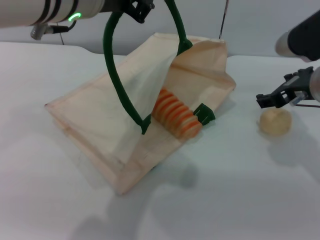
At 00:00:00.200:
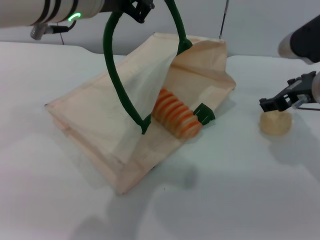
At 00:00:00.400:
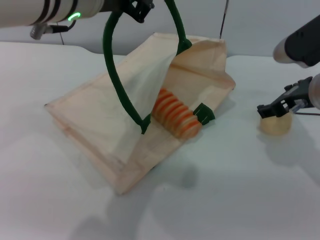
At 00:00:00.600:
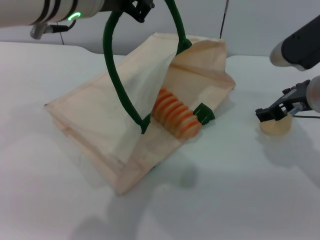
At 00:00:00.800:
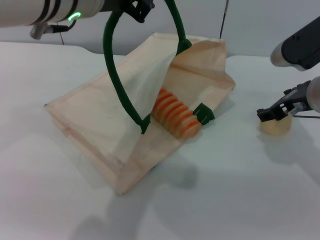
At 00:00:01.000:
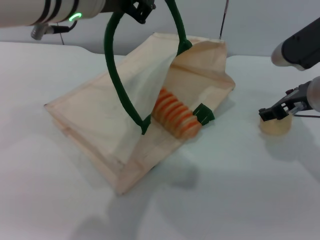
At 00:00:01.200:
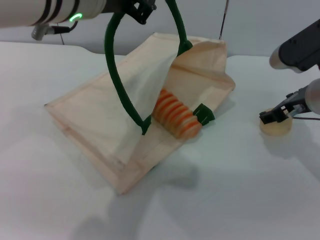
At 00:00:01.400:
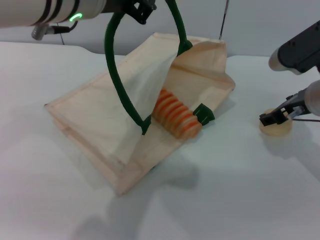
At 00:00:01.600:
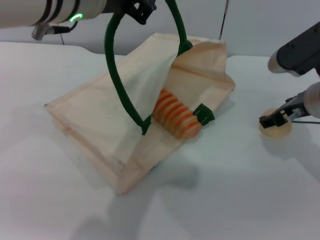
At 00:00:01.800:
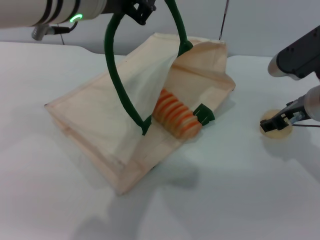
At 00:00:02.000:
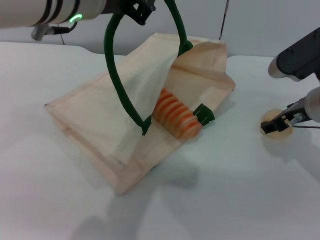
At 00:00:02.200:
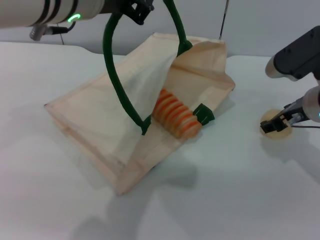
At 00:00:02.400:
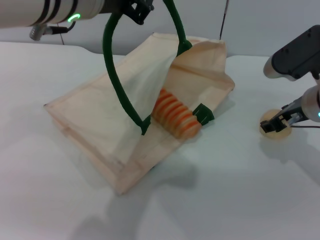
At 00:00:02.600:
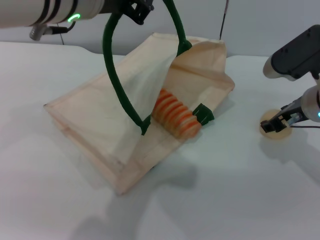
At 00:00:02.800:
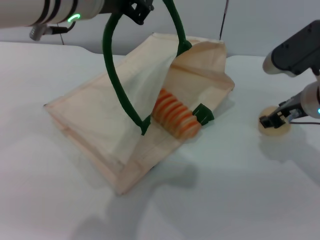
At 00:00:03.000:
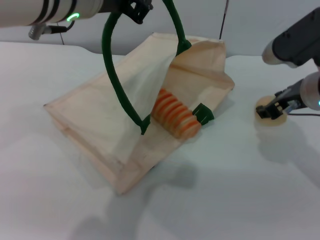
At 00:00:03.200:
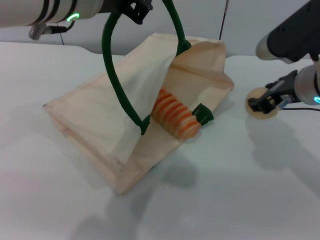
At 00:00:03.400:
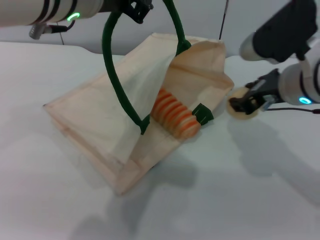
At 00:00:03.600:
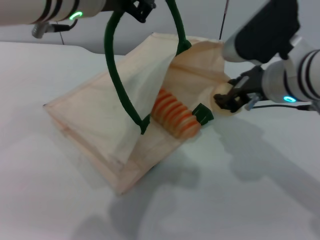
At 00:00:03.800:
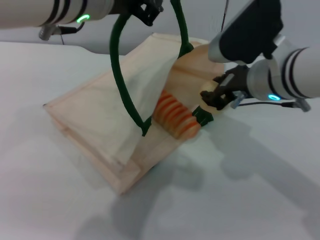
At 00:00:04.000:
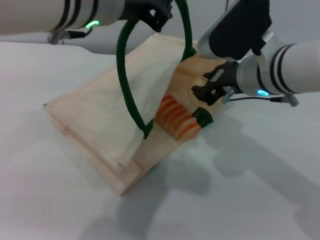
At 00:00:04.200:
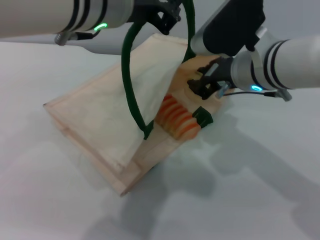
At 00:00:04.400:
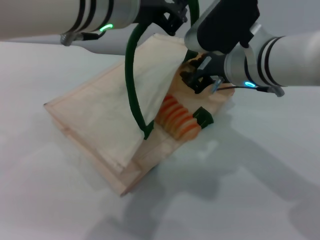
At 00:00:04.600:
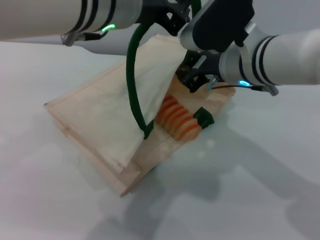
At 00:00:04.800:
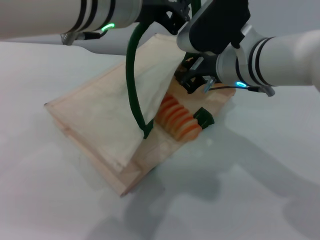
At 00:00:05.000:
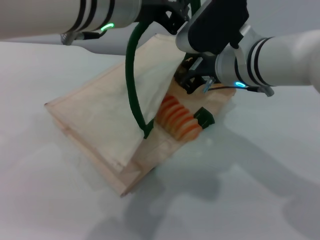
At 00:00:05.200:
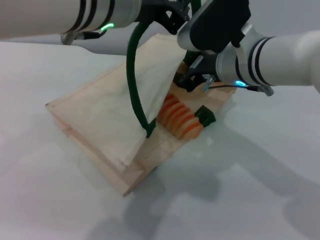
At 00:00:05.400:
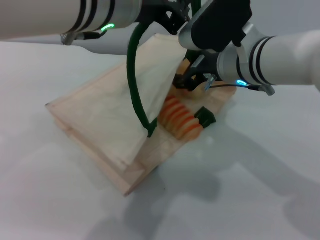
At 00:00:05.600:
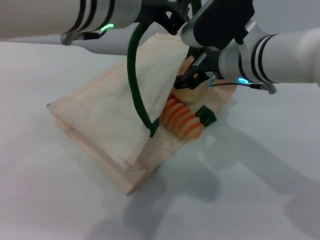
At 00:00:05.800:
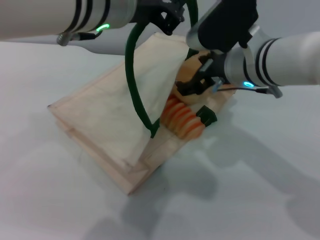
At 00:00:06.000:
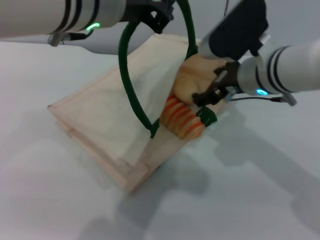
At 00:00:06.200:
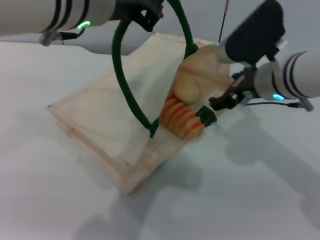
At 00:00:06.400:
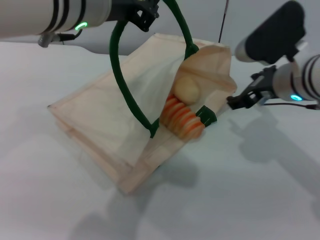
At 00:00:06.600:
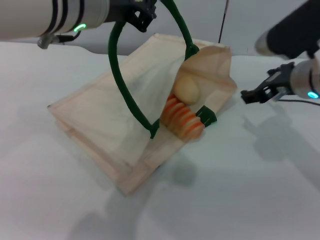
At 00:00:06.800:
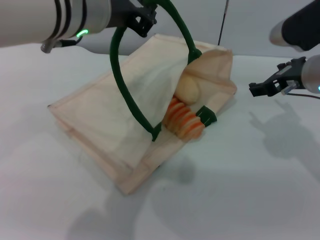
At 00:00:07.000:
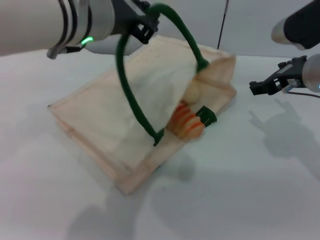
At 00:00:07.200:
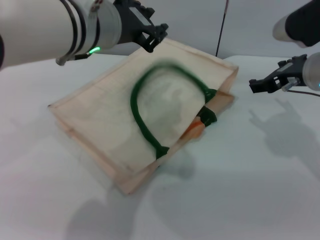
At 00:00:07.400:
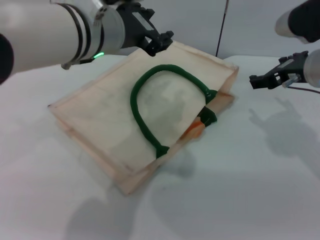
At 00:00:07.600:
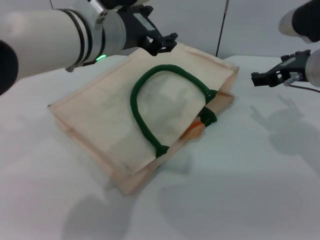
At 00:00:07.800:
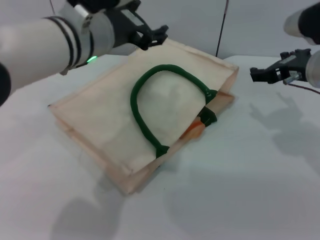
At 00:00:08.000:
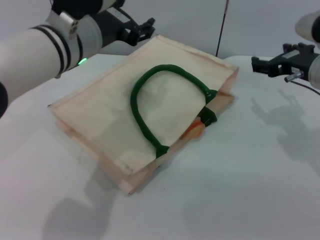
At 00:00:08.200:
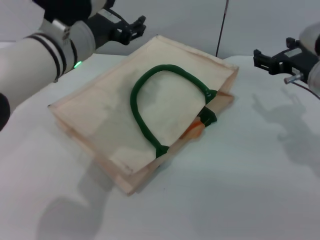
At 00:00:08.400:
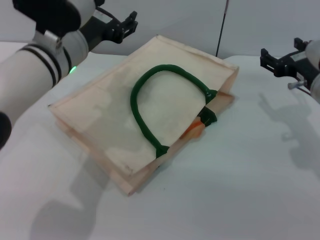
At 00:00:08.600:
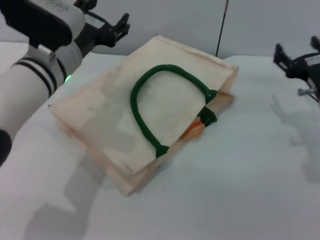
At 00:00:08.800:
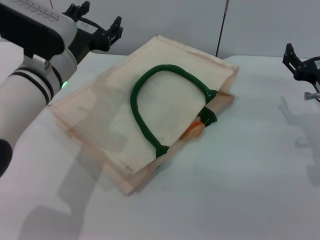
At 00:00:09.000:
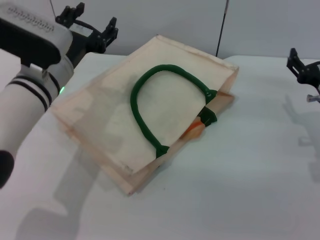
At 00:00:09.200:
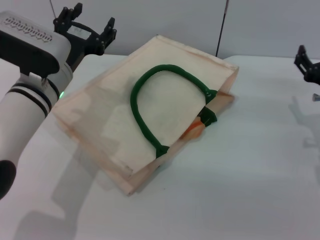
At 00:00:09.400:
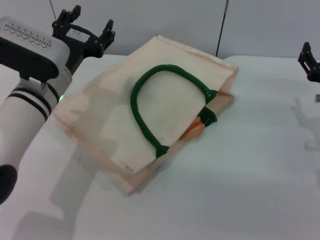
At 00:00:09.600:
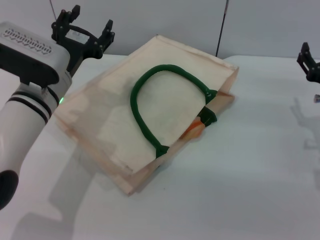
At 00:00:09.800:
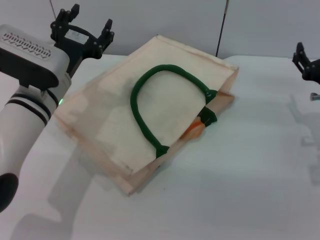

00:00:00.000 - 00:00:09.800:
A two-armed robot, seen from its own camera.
Task of the whole recording: pick up the bread and egg yolk pastry from the table and place it in the white handbag.
Step, 00:00:00.000 - 00:00:03.000: Pick up the egg yolk pastry with the right gripper.
Step, 00:00:03.200 - 00:00:05.600: Place the egg yolk pastry into the woven bag with the right gripper.
Step, 00:00:05.800 - 00:00:07.400: Lower the woven bag with the left gripper to close it.
00:00:00.000 - 00:00:01.400: The grippers move only a little.
00:00:01.400 - 00:00:02.800: The right gripper closes.
00:00:02.800 - 00:00:04.200: The right gripper travels to the left by about 10 cm, and closes.
00:00:04.200 - 00:00:05.600: The right gripper opens.
00:00:05.600 - 00:00:07.000: The left gripper moves about 5 cm; the right gripper moves to the right, some 10 cm, and opens.
00:00:07.000 - 00:00:08.400: The left gripper moves downward, some 10 cm, and opens up. Meanwhile the right gripper moves downward, approximately 5 cm.
00:00:08.400 - 00:00:09.800: The left gripper travels downward by roughly 5 cm. Meanwhile the right gripper moves approximately 5 cm.
